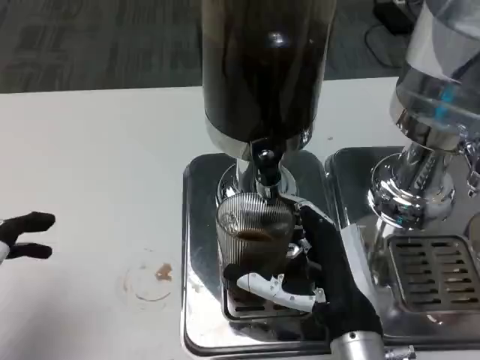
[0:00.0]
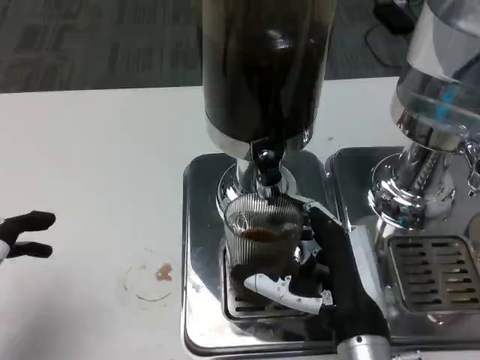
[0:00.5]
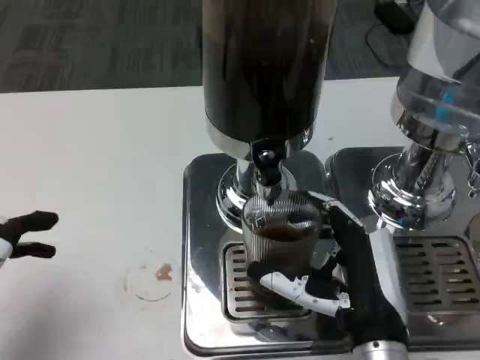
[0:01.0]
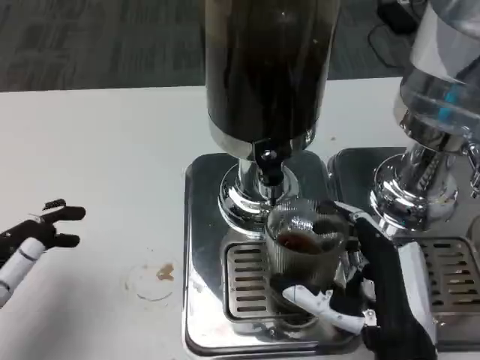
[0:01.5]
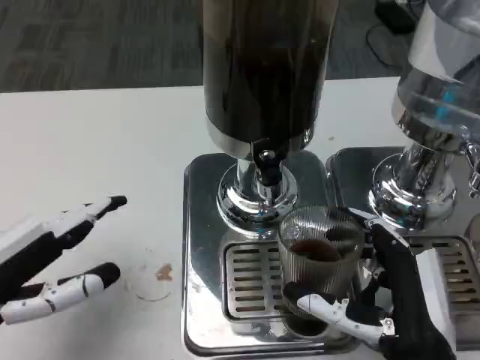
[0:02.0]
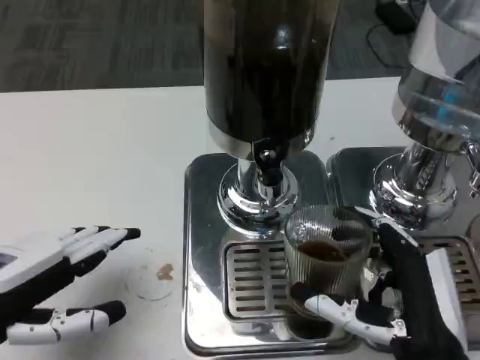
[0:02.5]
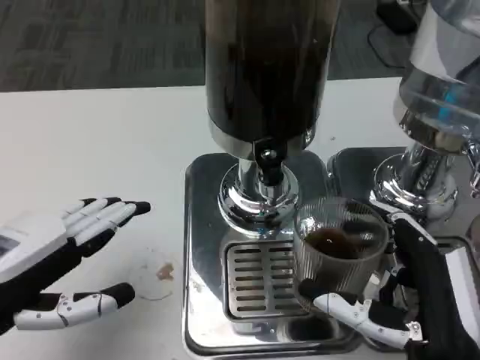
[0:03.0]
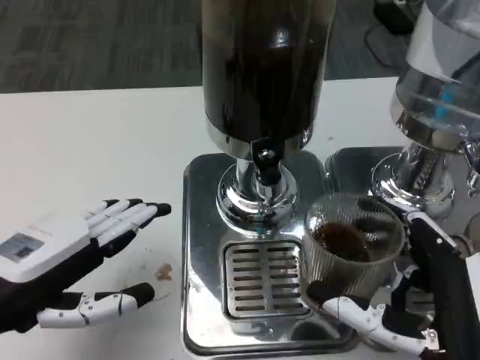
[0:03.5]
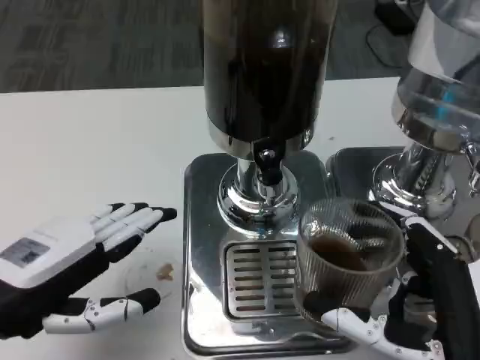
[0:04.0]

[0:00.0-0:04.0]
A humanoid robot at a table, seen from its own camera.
Task of the whole recording: Grasp the cup under the faucet to collect the drink, then remove the cup.
0:00.0 to 0:02.0: The left hand is displaced forward by approximately 5 cm; the right hand moves some 5 cm.
0:02.0 to 0:04.0: The right hand shifts by approximately 5 cm.

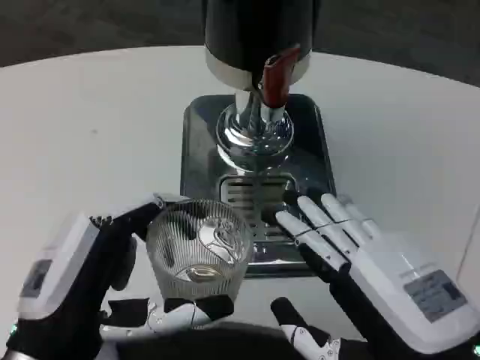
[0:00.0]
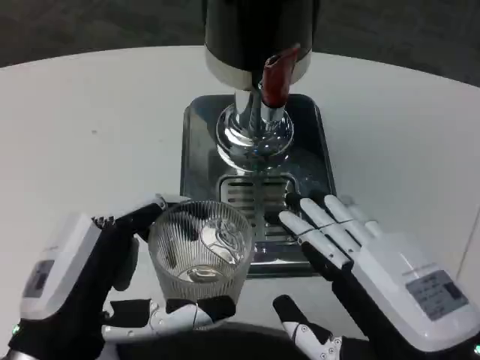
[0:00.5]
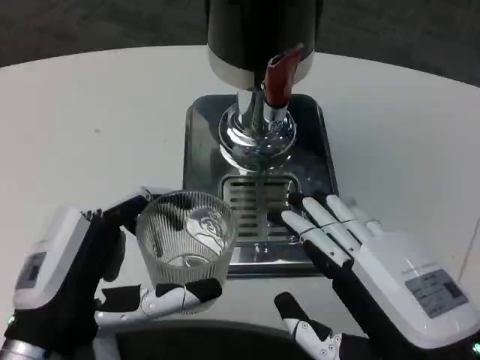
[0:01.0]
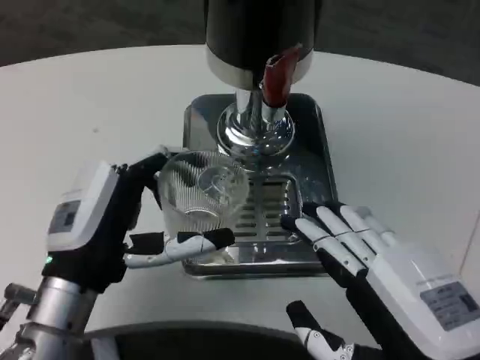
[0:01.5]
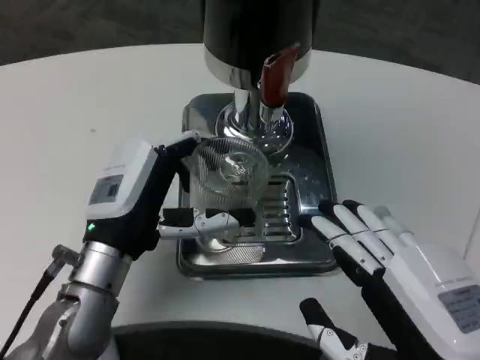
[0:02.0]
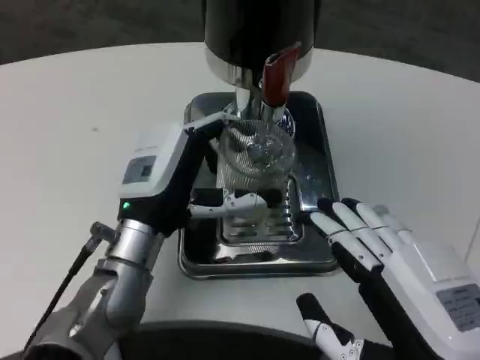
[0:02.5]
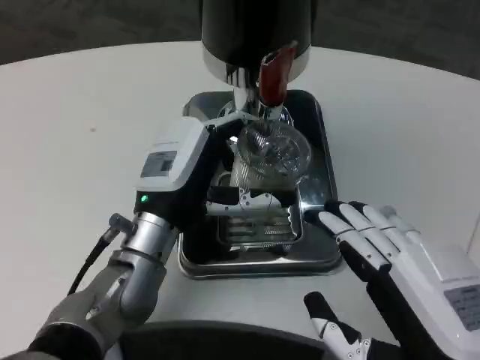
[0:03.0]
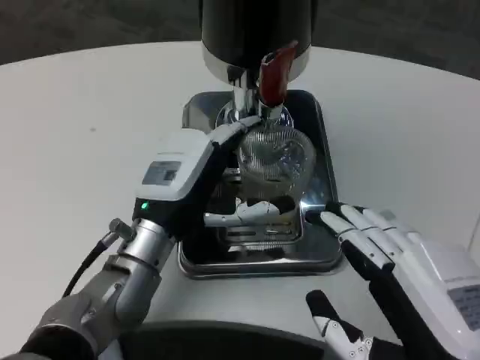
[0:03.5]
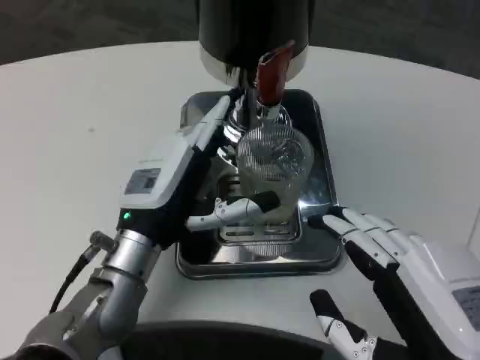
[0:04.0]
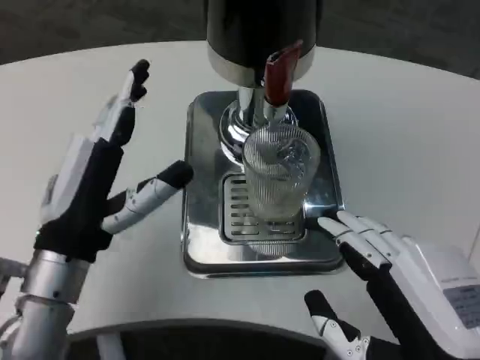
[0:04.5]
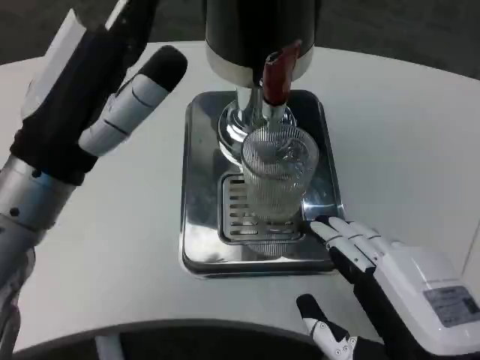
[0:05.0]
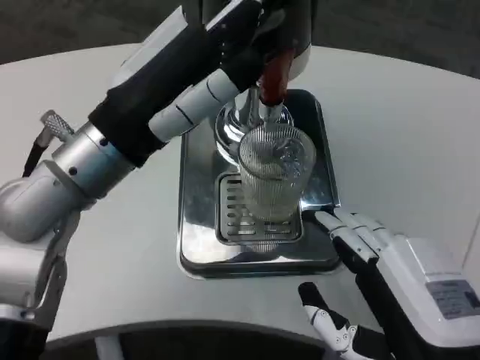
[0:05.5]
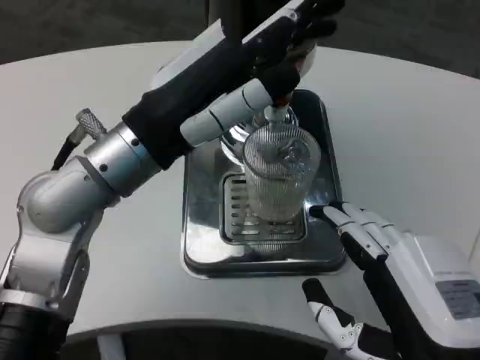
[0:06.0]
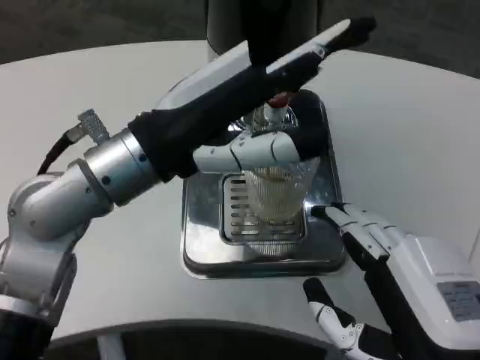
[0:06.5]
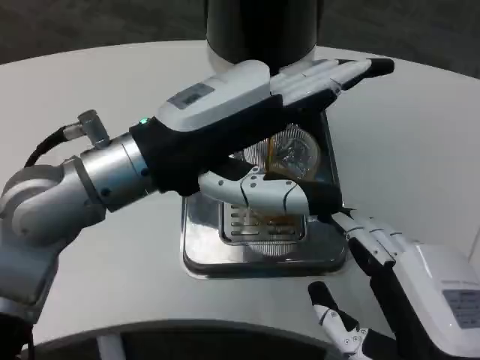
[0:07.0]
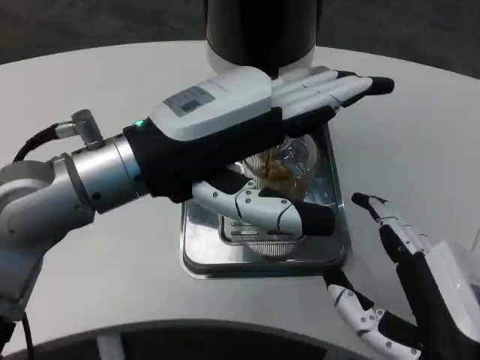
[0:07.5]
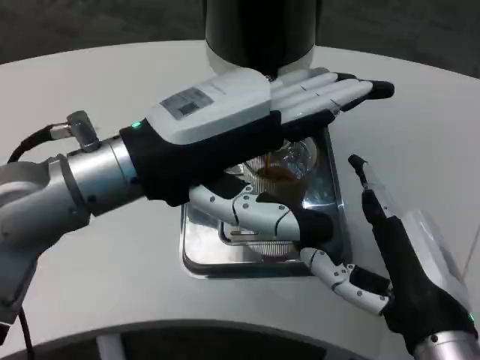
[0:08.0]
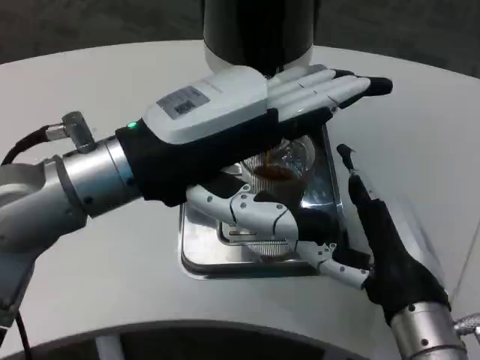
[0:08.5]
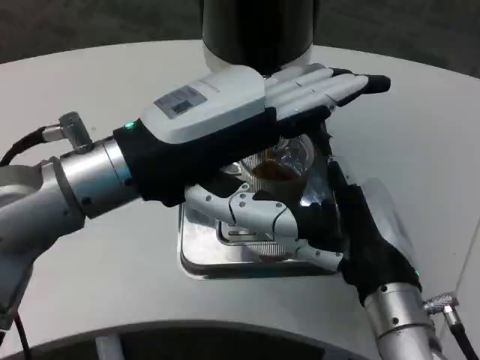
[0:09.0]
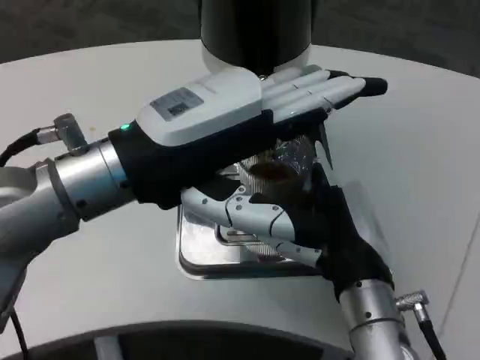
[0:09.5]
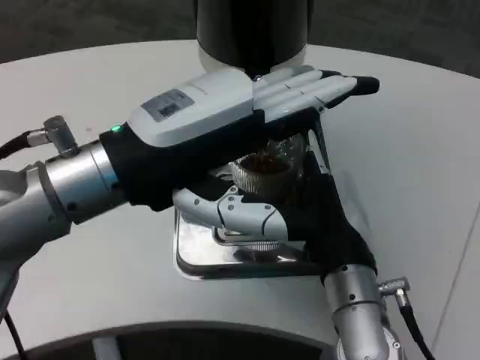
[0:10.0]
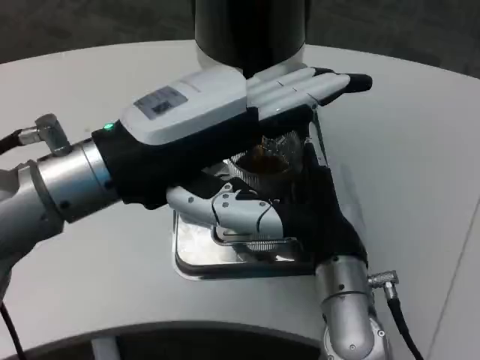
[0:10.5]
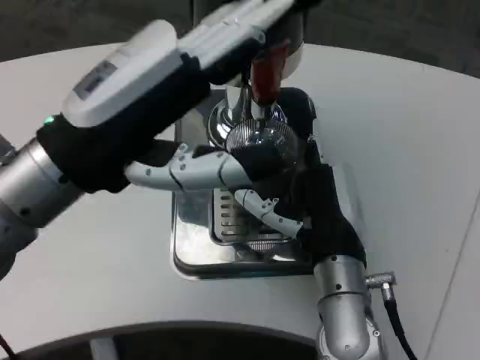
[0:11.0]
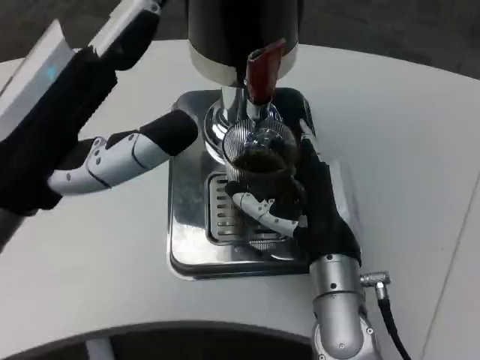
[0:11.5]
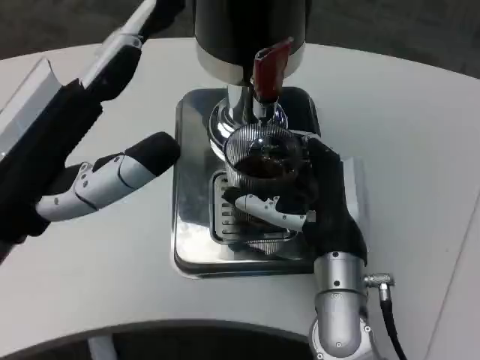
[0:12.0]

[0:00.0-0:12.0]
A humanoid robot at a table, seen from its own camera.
Task of the whole recording: Grasp the cup under the faucet to collect the drink, then remove the cup.
0:00.0 to 0:02.0: The left hand heads forward, covering approximately 10 cm.
0:04.0 to 0:06.0: The left hand moves upward, some 15 cm.
0:06.0 to 0:08.0: The right hand moves some 5 cm.
0:08.0 to 0:10.0: The right hand moves forward and to the left, about 10 cm.
0:10.0 to 0:12.0: The left hand moves to the left, approximately 5 cm.

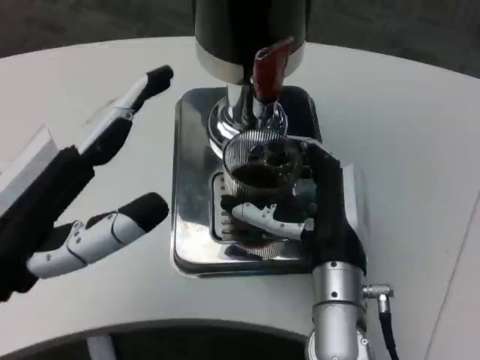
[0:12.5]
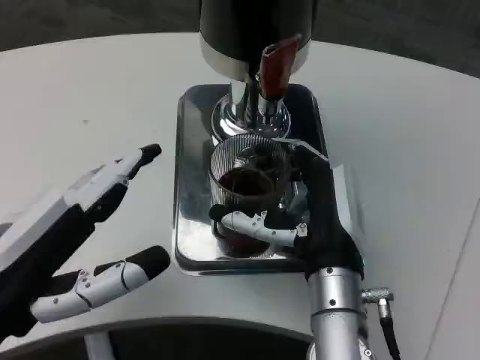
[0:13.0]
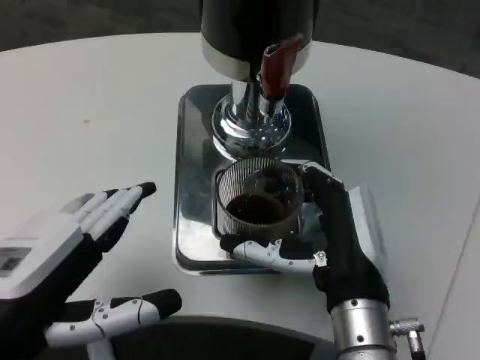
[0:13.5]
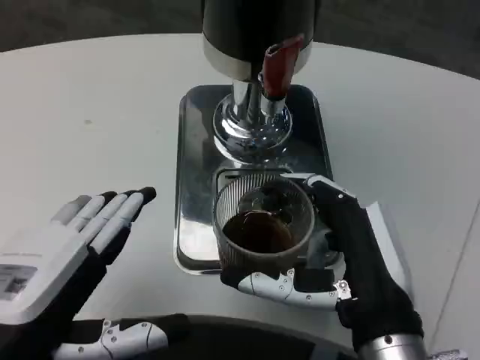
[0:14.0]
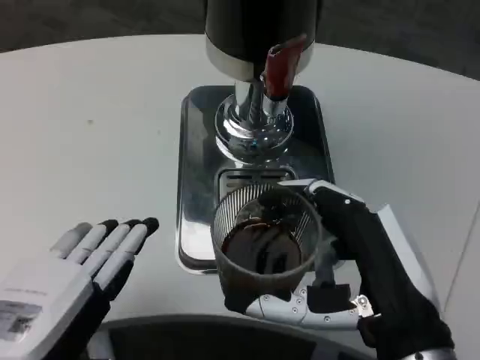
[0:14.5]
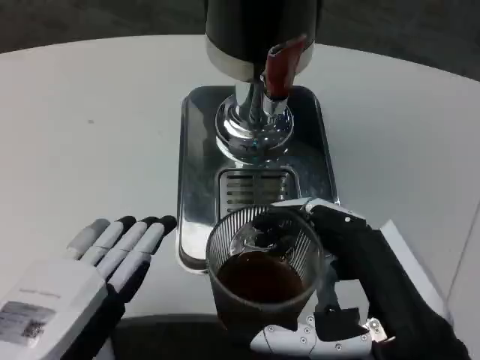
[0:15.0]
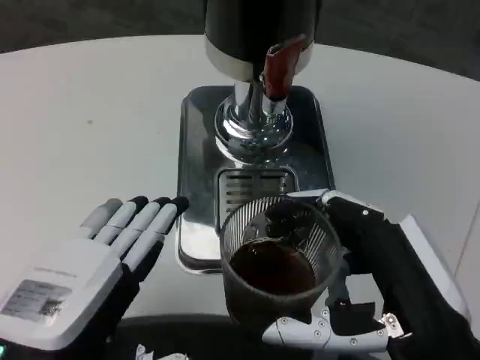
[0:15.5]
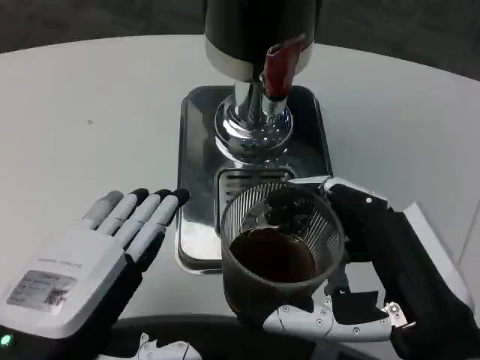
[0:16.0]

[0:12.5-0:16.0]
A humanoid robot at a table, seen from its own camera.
Task of the whole recording: Grasp the cup under the faucet to collect the drink, then remove the cup.
0:12.5 to 0:14.5: The right hand goes some 15 cm backward and to the right. The left hand is displaced backward by some 5 cm.
